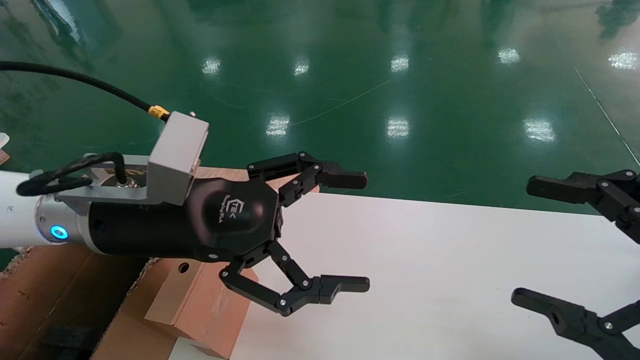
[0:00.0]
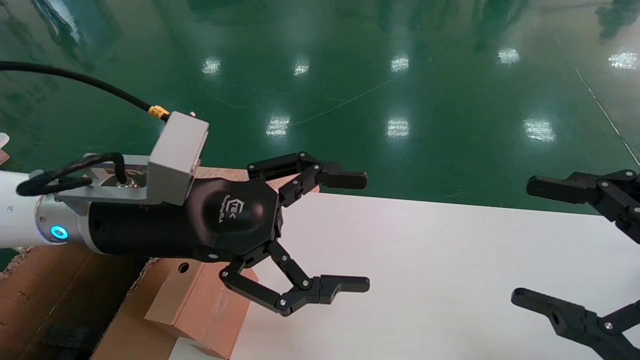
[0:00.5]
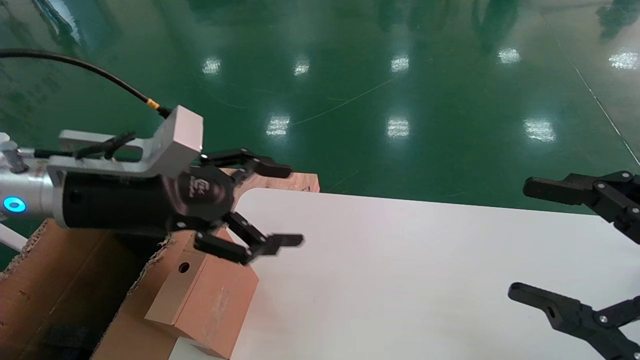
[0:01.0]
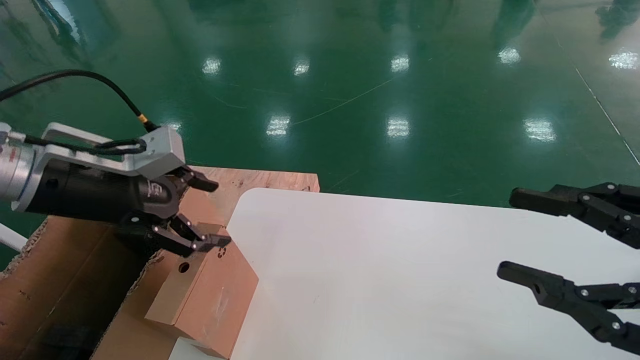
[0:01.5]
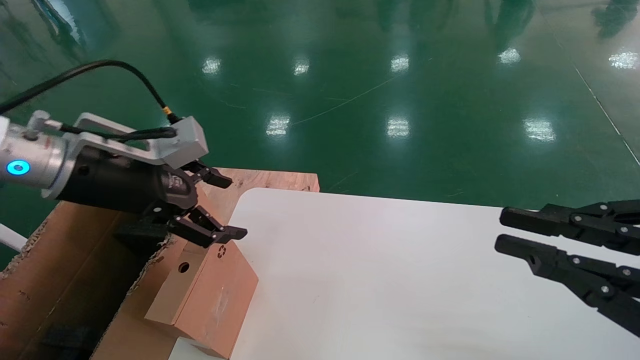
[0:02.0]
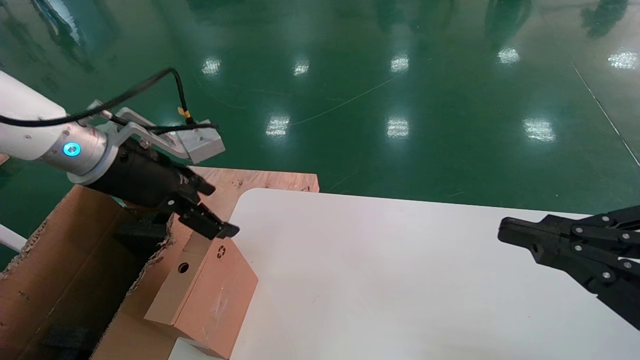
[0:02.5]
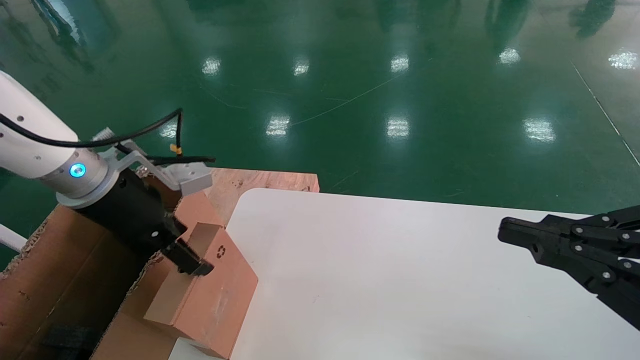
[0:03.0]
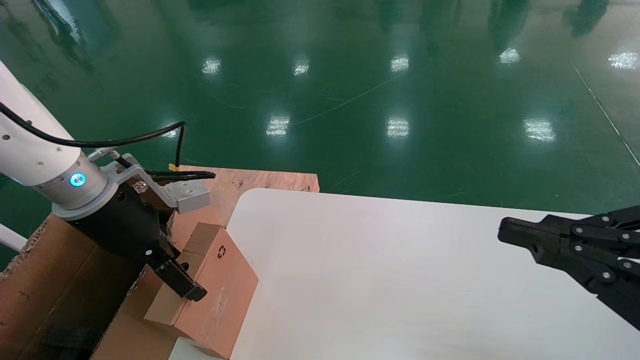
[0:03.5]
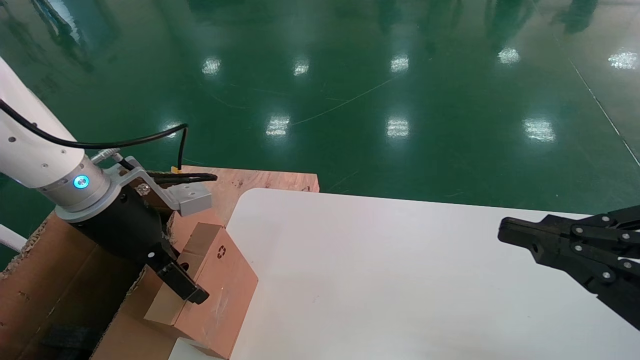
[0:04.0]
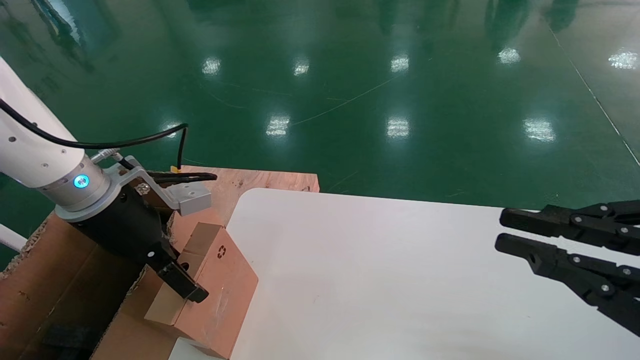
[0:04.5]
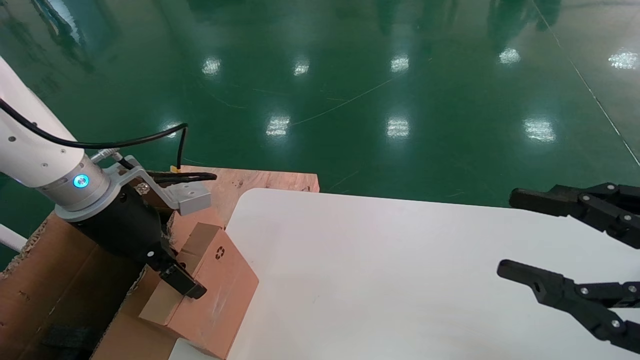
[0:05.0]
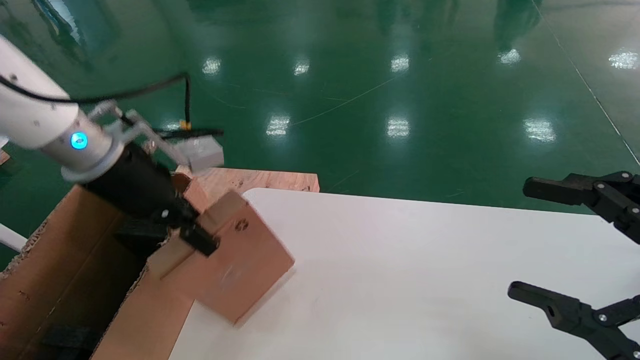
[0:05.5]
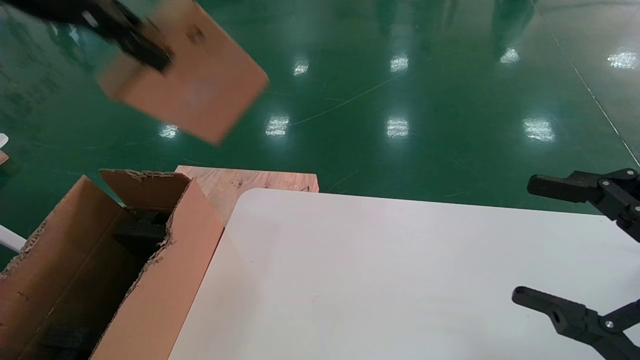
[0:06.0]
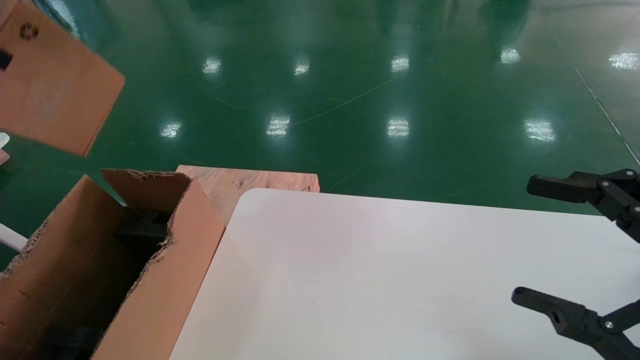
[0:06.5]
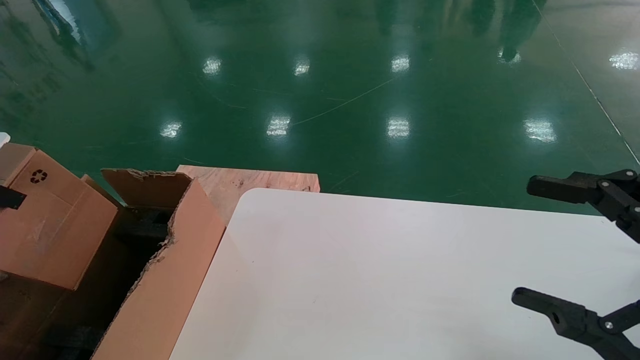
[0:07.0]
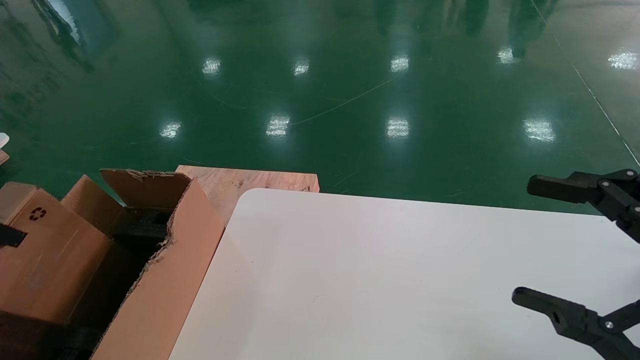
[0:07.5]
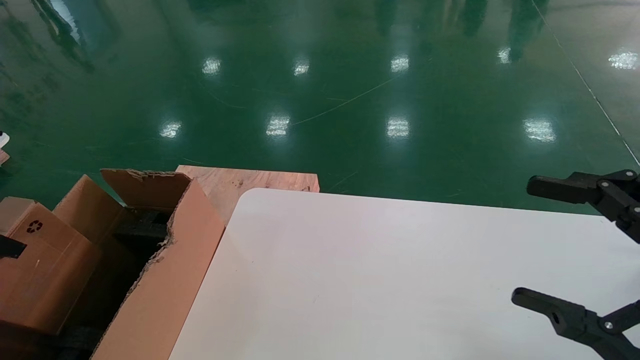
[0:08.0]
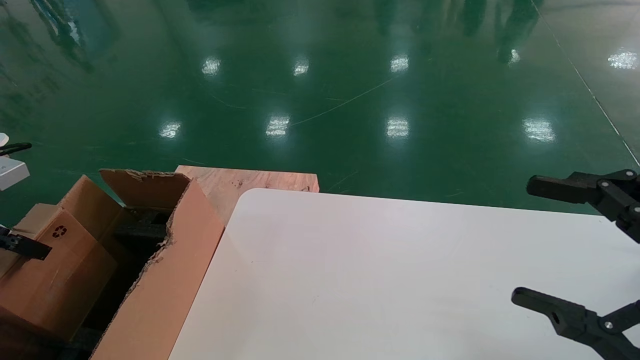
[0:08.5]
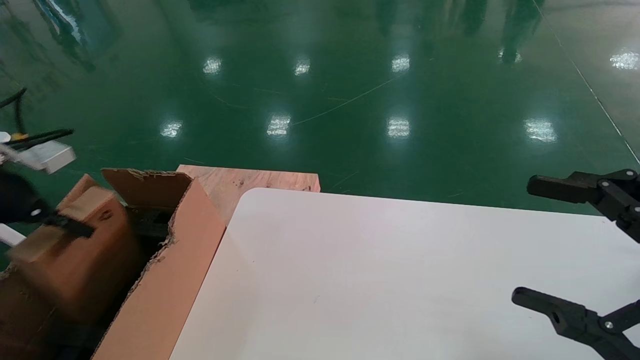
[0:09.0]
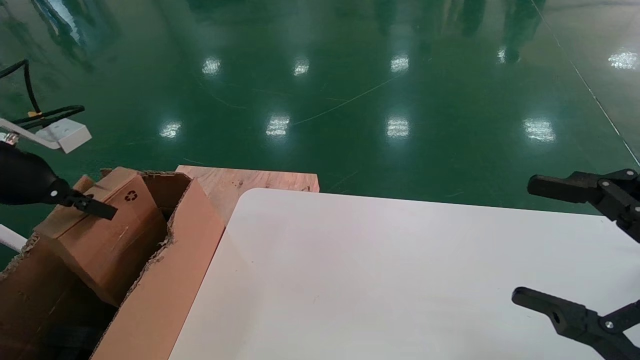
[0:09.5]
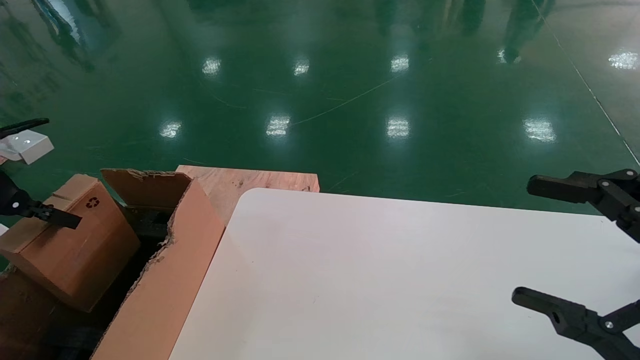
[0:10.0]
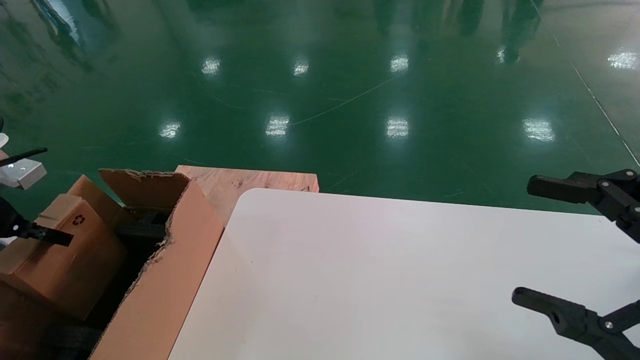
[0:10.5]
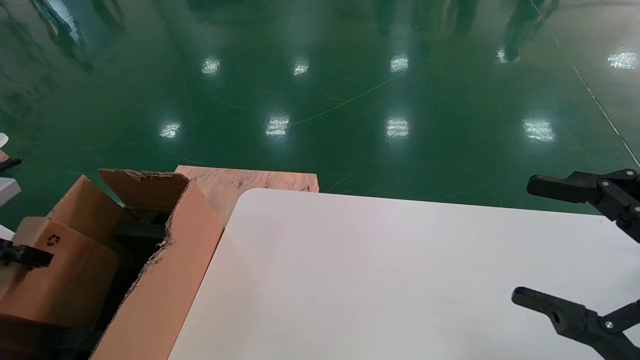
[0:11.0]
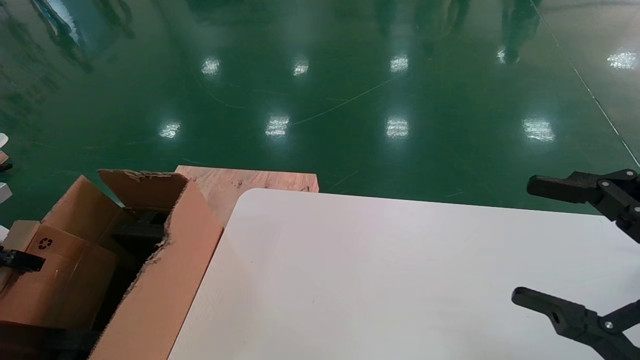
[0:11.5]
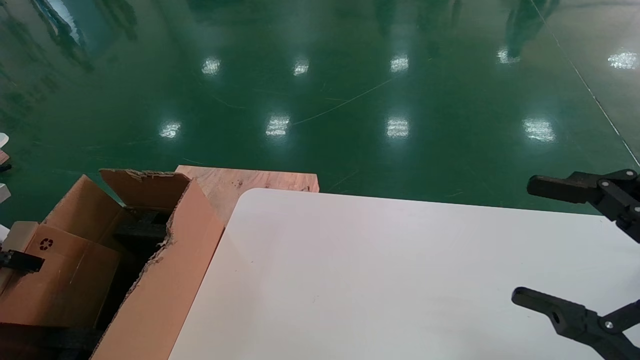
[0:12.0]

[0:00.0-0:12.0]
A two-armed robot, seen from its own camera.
Task of the whole recording: place the small box on the table into the large box on the left.
Step, 0:01.0 to 0:05.0: Pick up the mouse and the power cord paper box.
0:00.0 to 0:02.0: The left gripper moves to the left, about 10 cm; the right gripper closes its fingers.
0:04.0 to 0:06.0: The right gripper opens its fingers. The left gripper moves upward, about 25 cm, and closes.
0:06.0 to 0:08.0: The left gripper travels downward and to the left by about 25 cm.
0:08.0 to 0:10.0: The left gripper goes some 5 cm forward.
0:10.0 to 0:12.0: The left gripper goes some 10 cm downward and to the left.

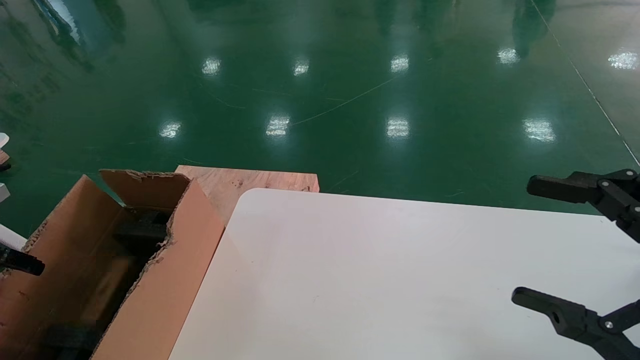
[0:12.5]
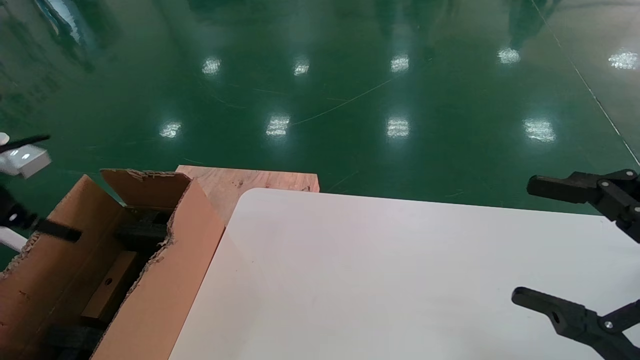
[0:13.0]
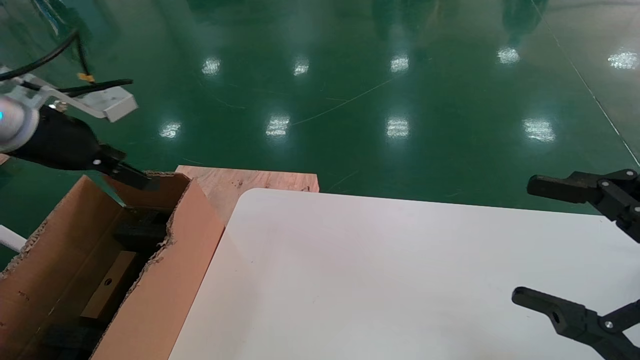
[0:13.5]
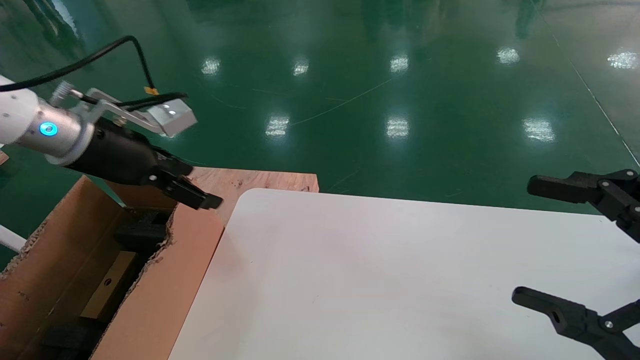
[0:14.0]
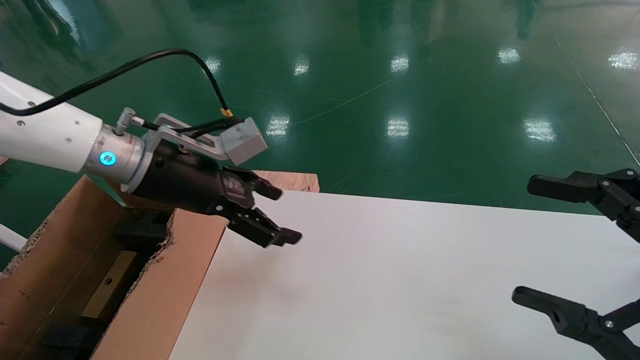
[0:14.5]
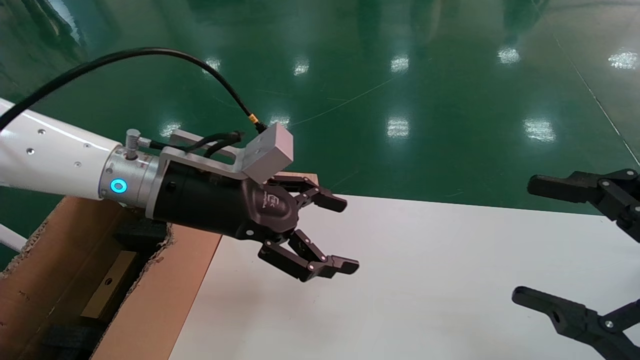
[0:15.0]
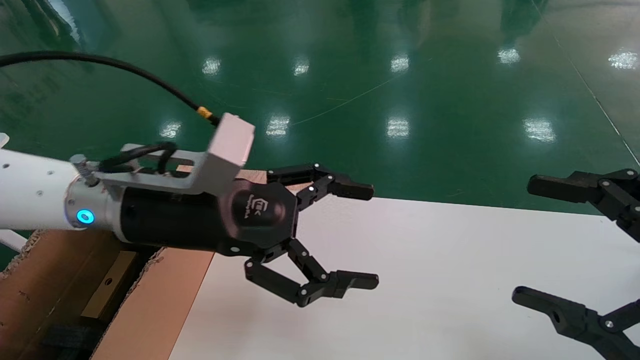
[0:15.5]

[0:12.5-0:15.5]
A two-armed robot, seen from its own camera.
Task of the whole recording: place the small box on the table into the large box on the left.
0:12.5 to 0:14.0: The left gripper goes roughly 30 cm to the right, forward and upward, and opens its fingers.
0:14.0 to 0:15.5: The left gripper heads to the right and backward, covering roughly 15 cm.
